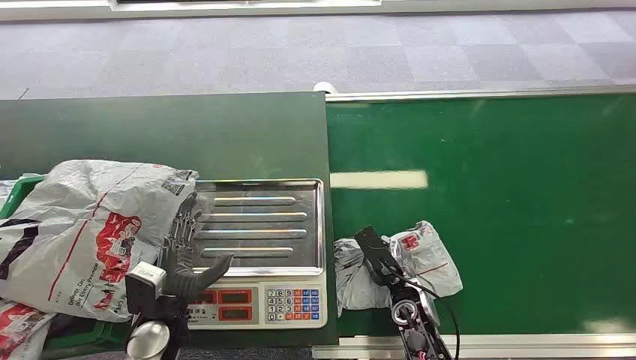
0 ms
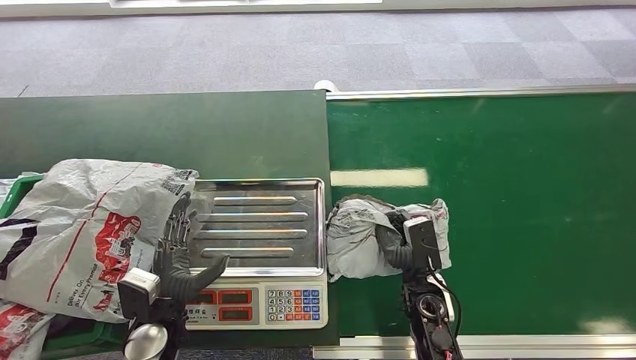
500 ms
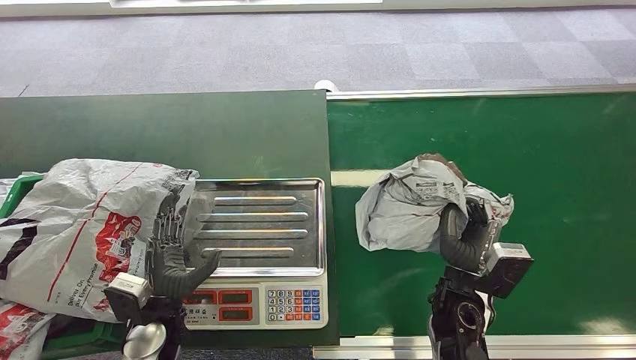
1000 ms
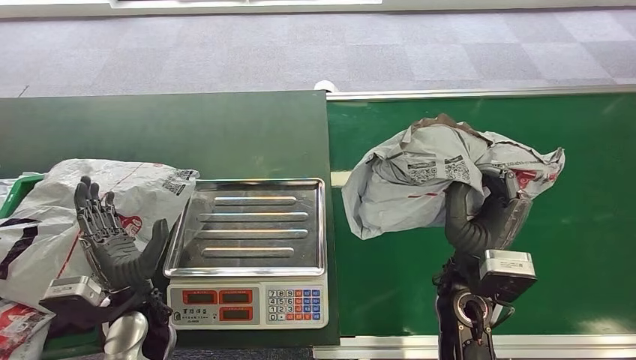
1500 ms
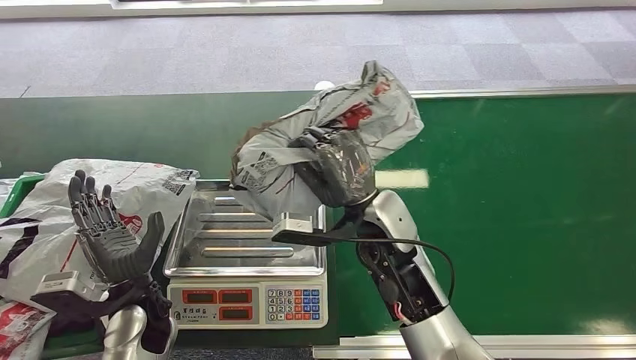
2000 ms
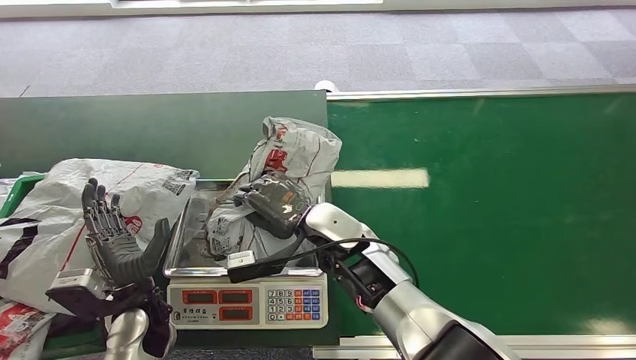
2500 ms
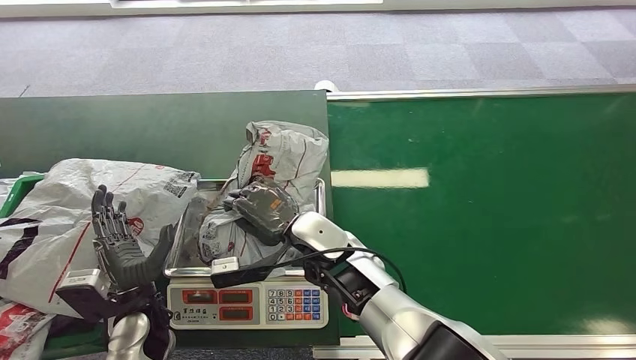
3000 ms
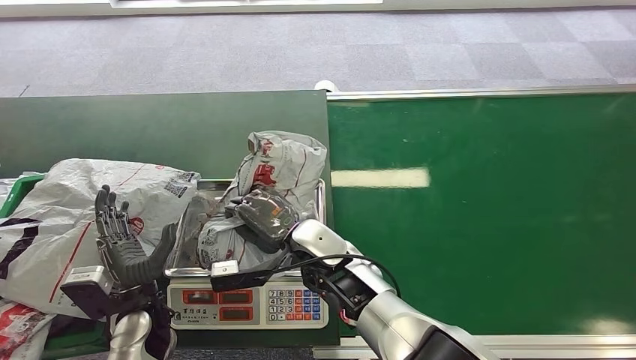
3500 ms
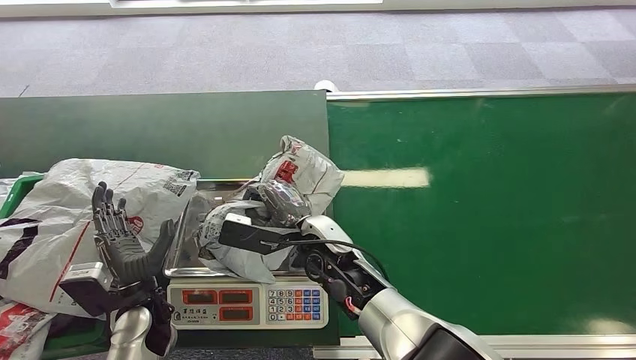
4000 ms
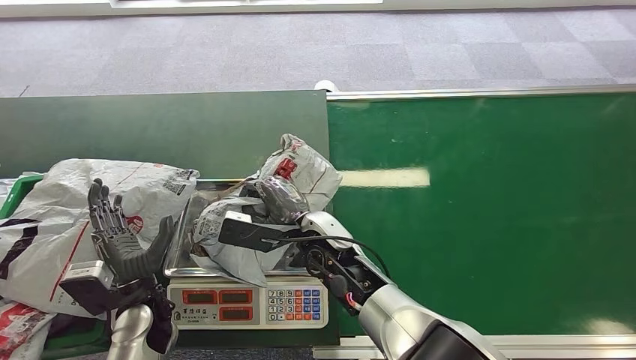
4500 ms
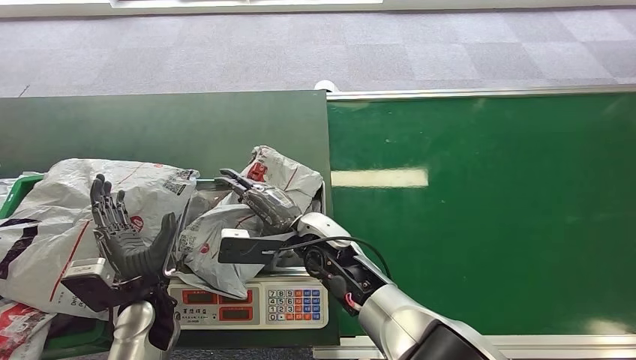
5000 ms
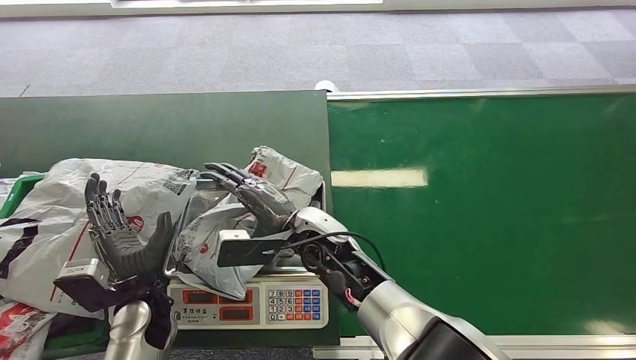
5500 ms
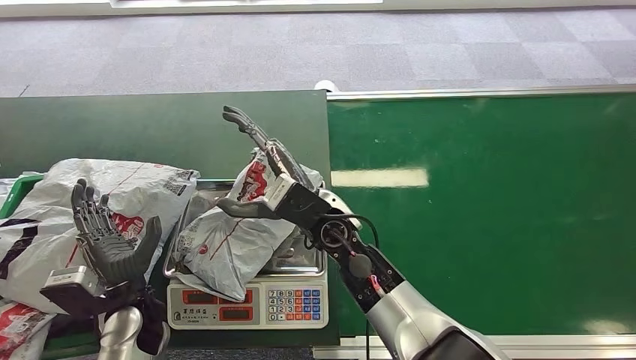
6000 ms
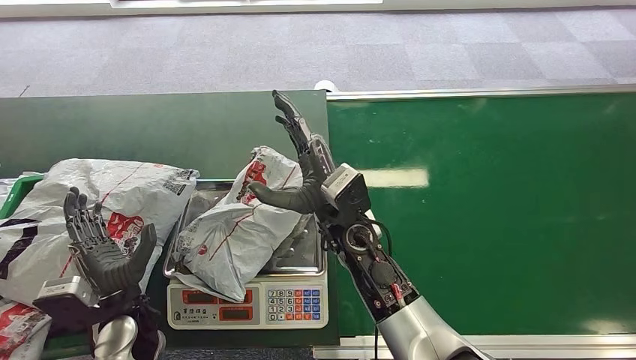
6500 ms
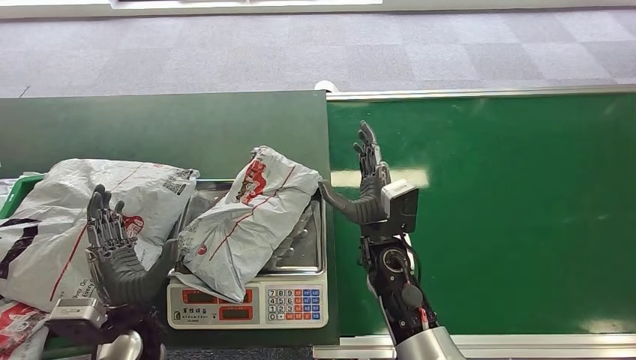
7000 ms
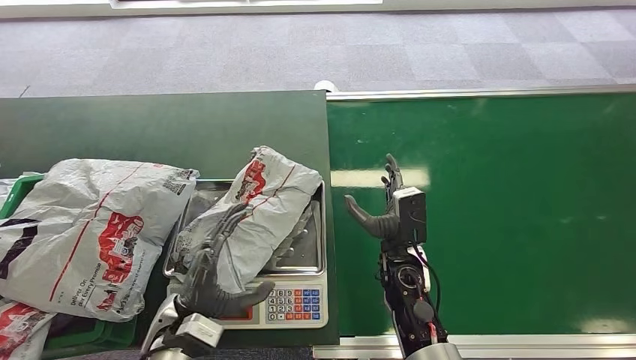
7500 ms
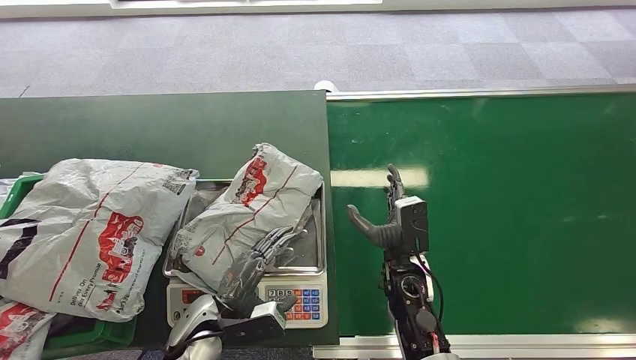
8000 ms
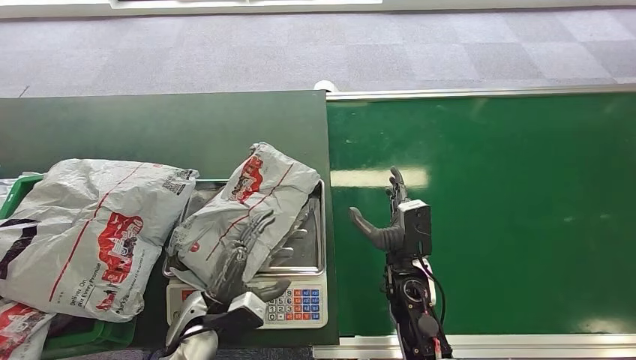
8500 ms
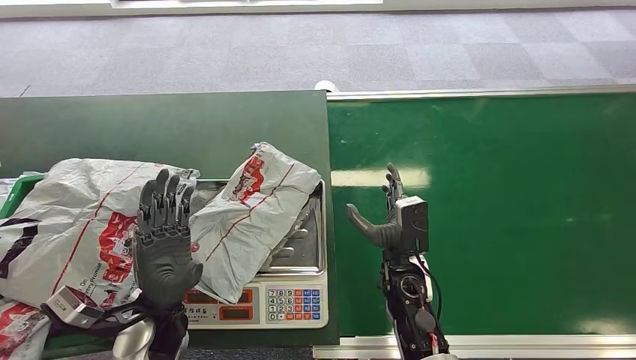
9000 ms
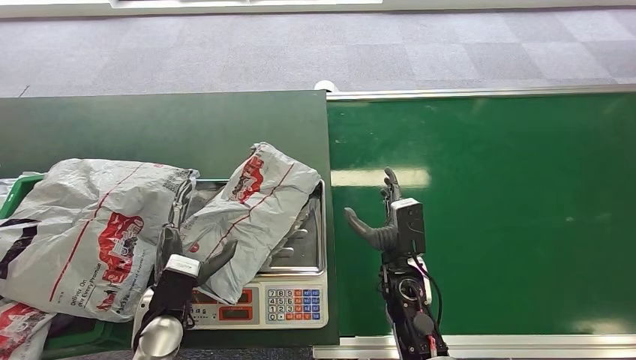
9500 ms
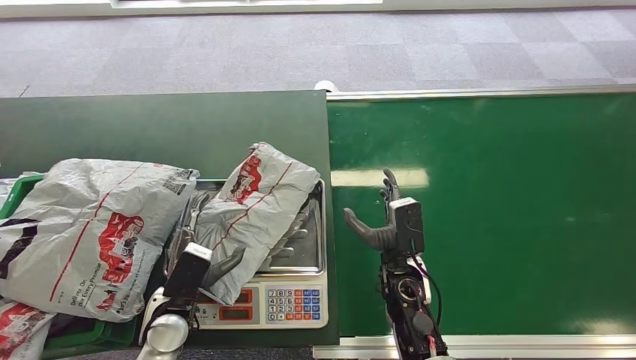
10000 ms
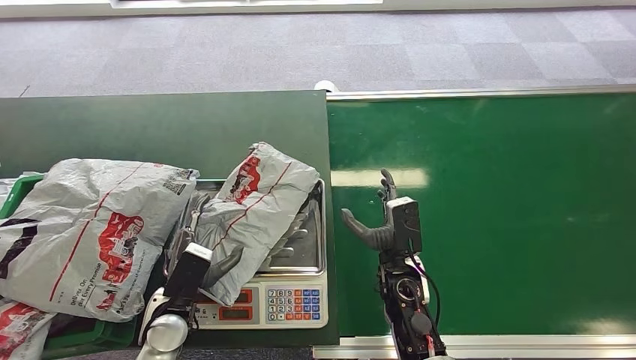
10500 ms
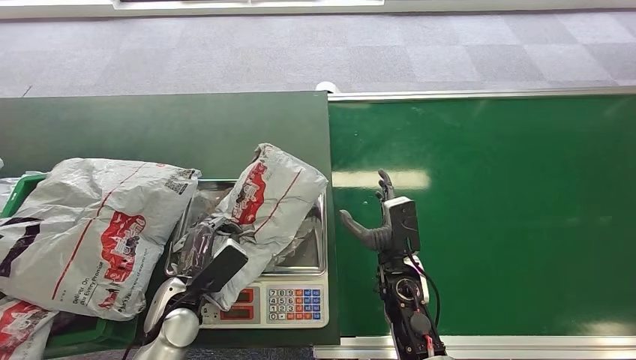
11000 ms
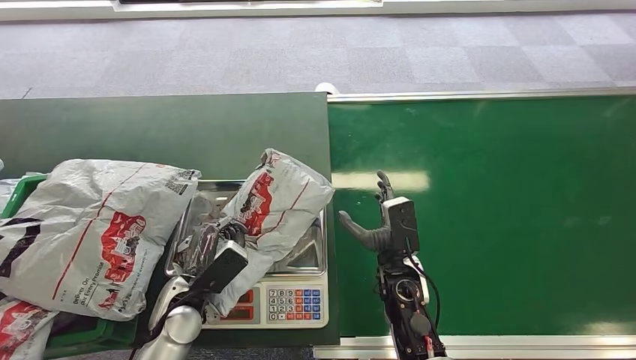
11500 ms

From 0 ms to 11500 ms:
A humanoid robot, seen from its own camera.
Step, from 0 ms to 500 ms: Pick up the package from the conveyor belt.
Step, from 2500 ms to 5000 ms: Place the package onto the inbound machine.
From 4000 ms to 6000 ms: The right hand is displaced upward by some 5 cm.
From 6000 ms to 7500 ms: The left hand is displaced to the right by roughly 5 cm. Meanwhile the right hand goes approximately 15 cm to the right and downward.

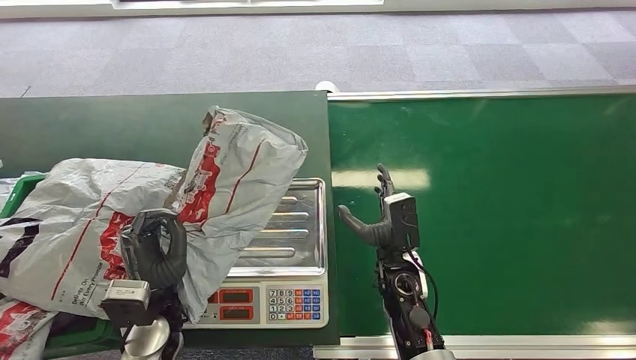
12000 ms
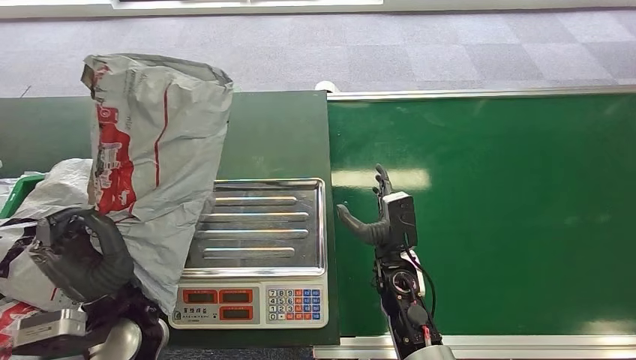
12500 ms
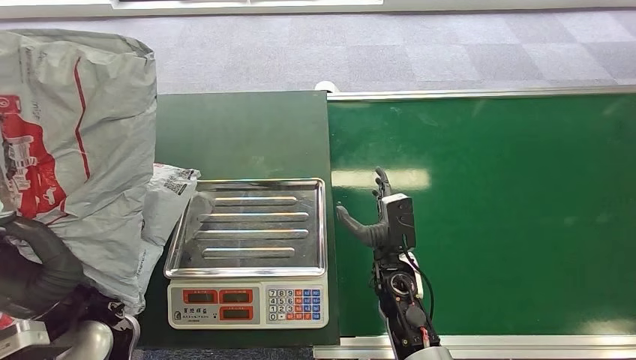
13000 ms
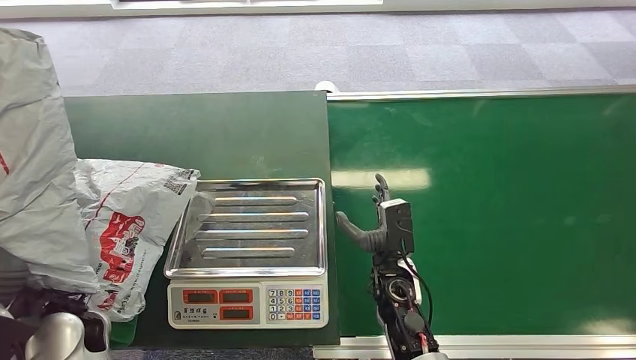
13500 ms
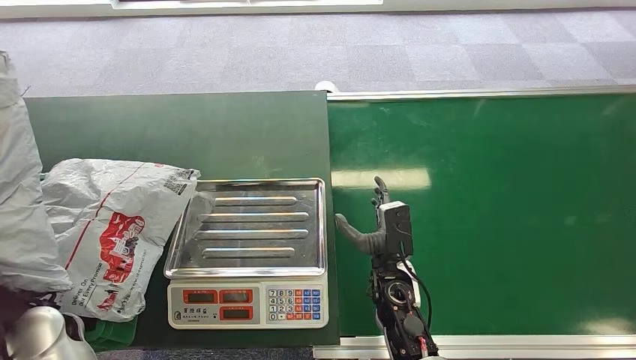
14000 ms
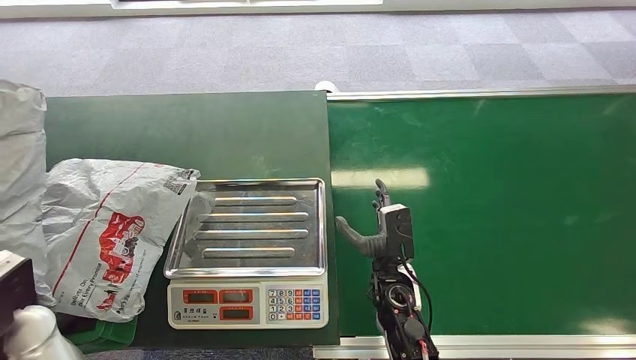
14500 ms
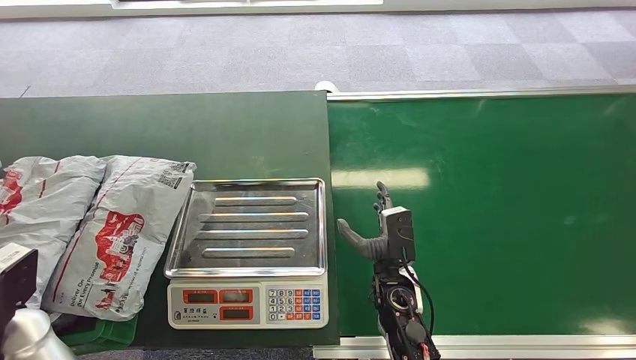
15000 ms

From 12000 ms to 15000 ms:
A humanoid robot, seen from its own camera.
Step, from 14000 ms to 15000 ms: Place the package into the parcel locker.
From 13500 ms to 15000 ms: The left hand travels to the left by roughly 10 cm.

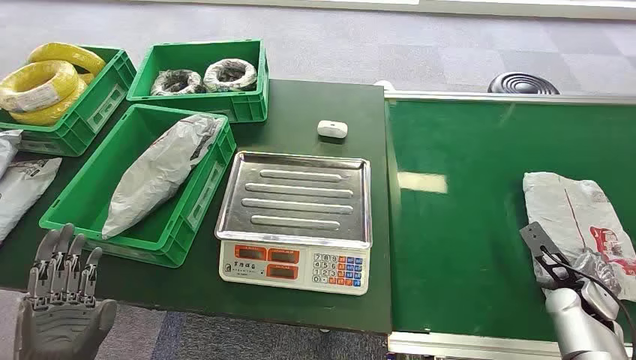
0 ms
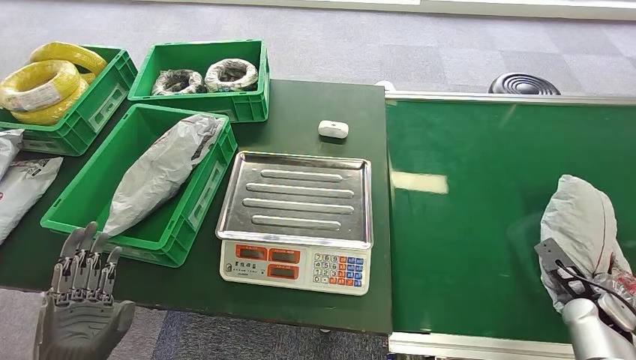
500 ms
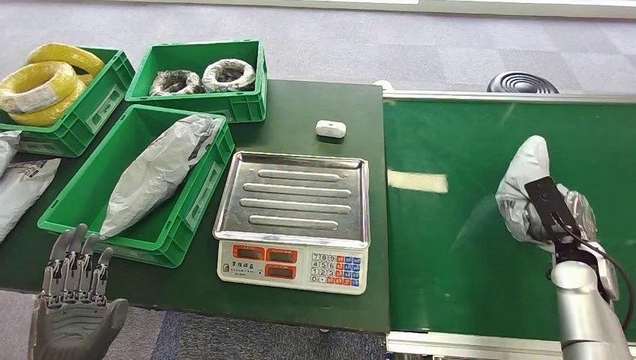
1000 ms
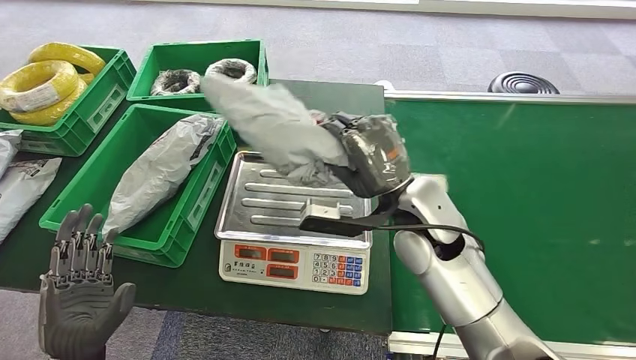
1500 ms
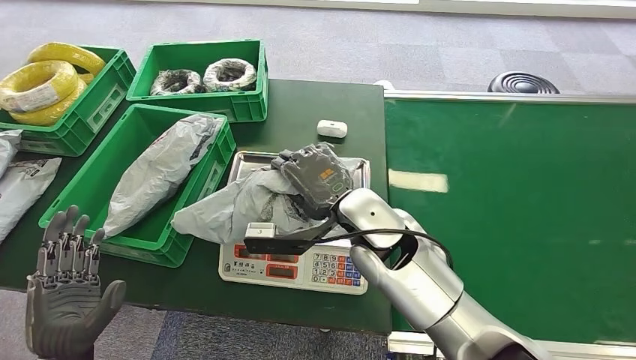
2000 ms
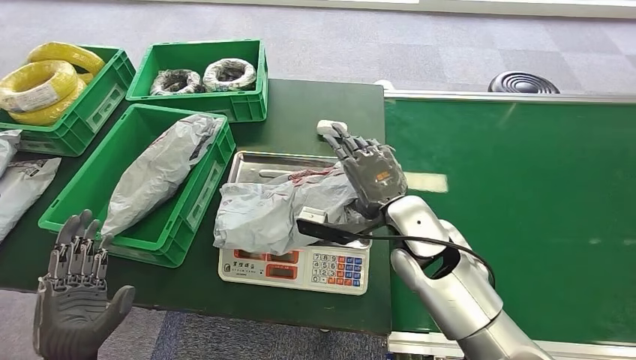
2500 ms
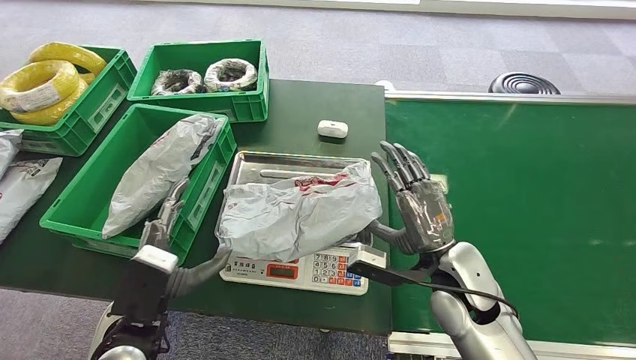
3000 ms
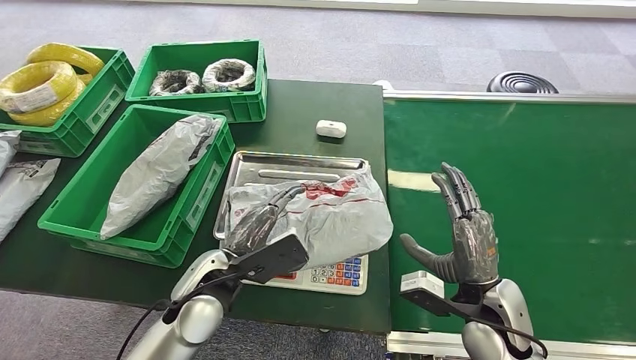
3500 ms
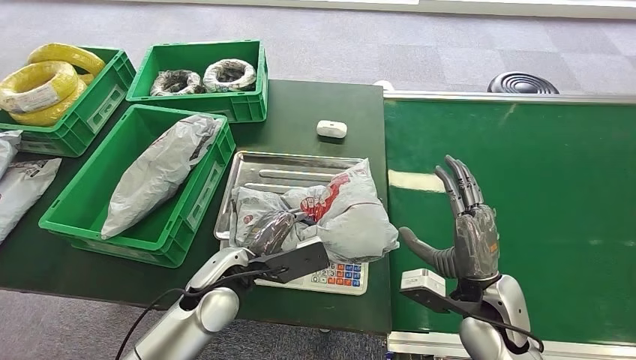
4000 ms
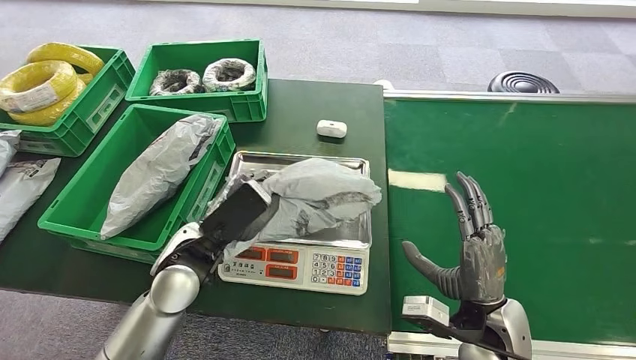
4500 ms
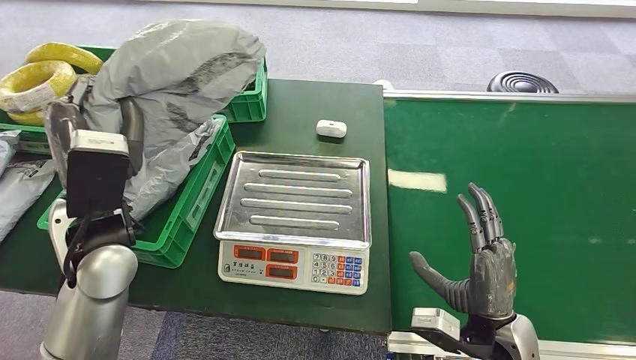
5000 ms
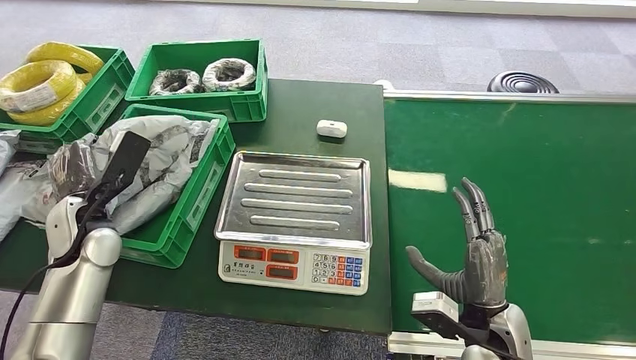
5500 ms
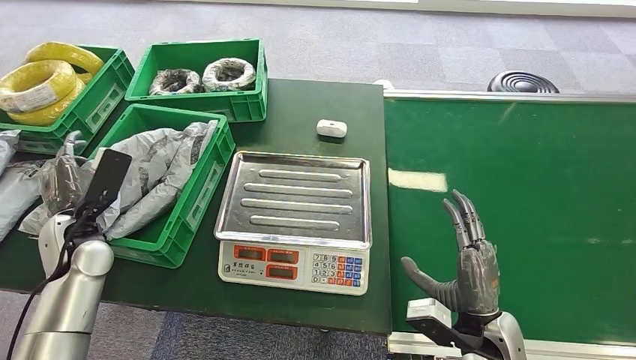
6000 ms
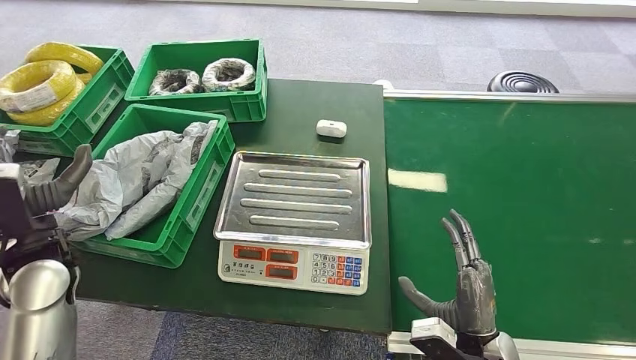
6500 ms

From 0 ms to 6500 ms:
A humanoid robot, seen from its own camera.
Step, from 0 ms to 1000 ms: Pick up the package from the conveyor belt.
Step, from 2000 ms to 3000 ms: Place the package onto the inbound machine.
Step, from 3500 ms to 5000 ms: Pick up the package from the inbound machine.
Step, from 5500 ms to 6500 ms: Place the package into the parcel locker.
From 2000 ms to 4500 ms: The left hand is displaced forward and to the right by approximately 20 cm; the right hand moves to the right, backward and downward, about 25 cm.
